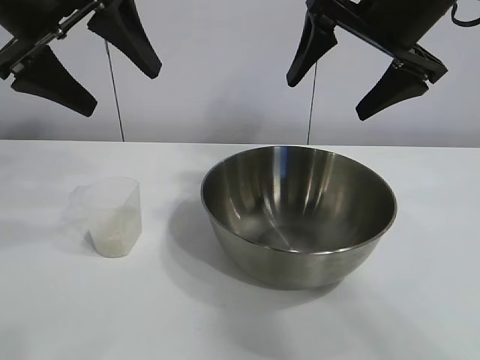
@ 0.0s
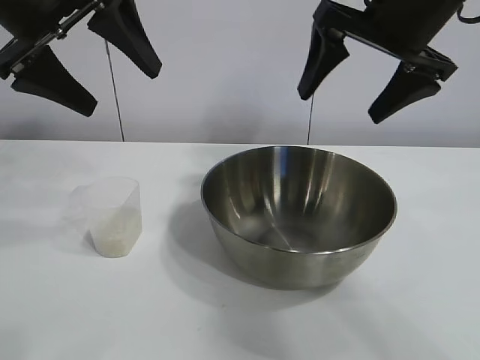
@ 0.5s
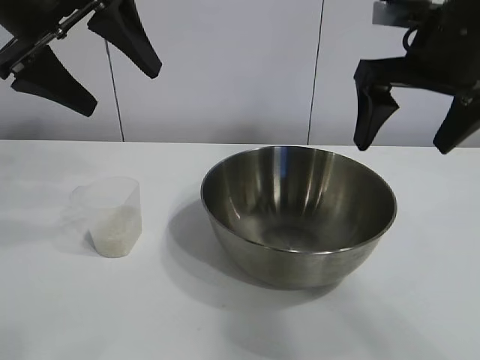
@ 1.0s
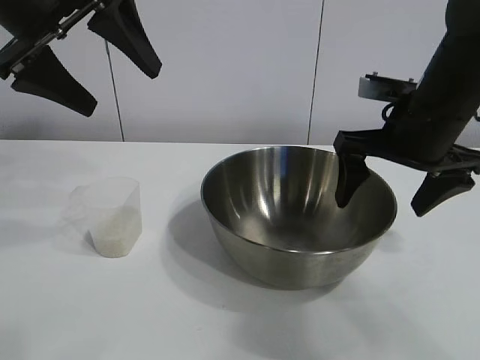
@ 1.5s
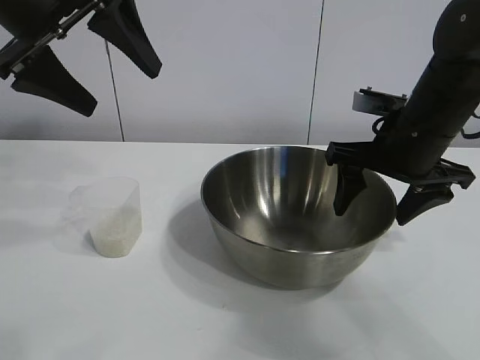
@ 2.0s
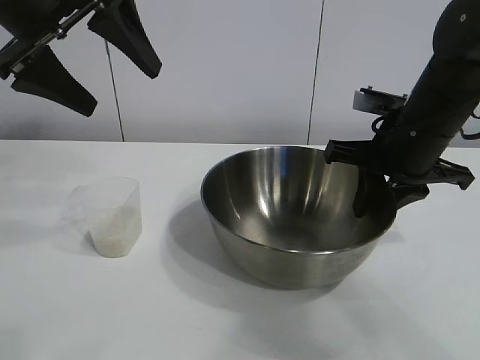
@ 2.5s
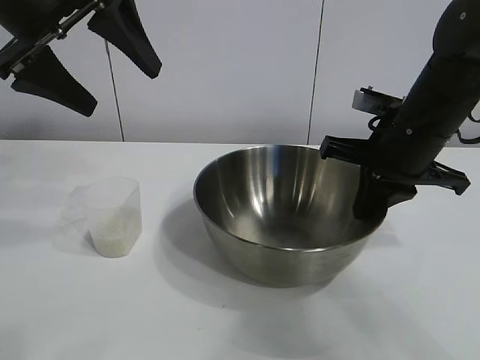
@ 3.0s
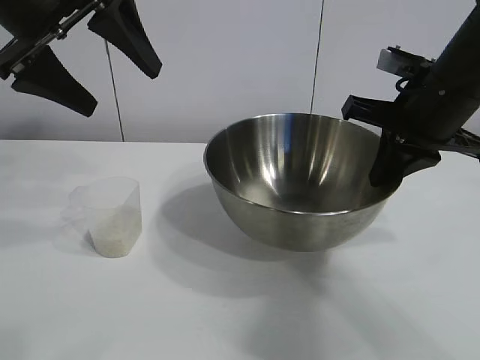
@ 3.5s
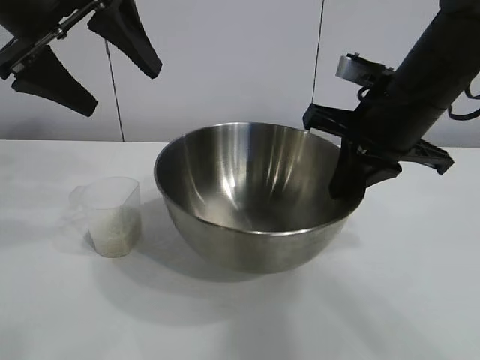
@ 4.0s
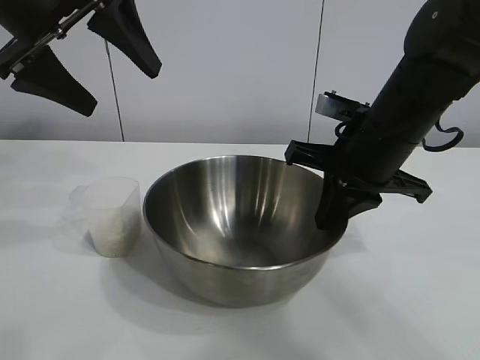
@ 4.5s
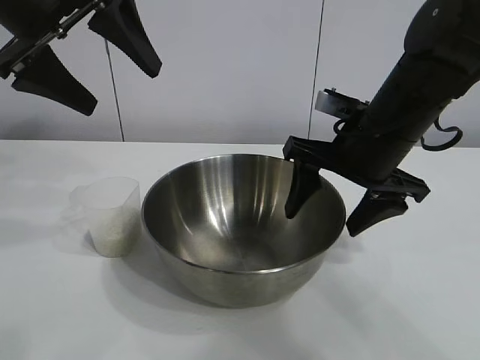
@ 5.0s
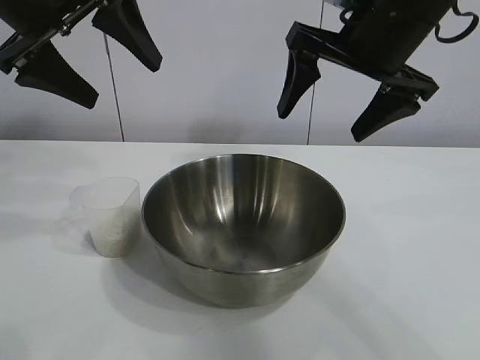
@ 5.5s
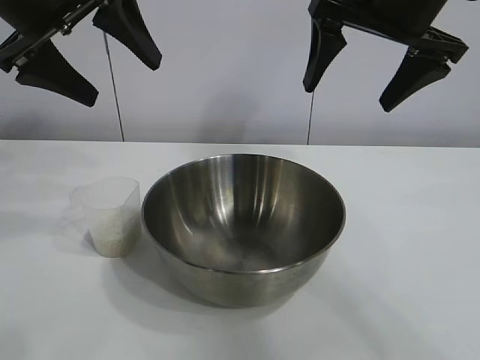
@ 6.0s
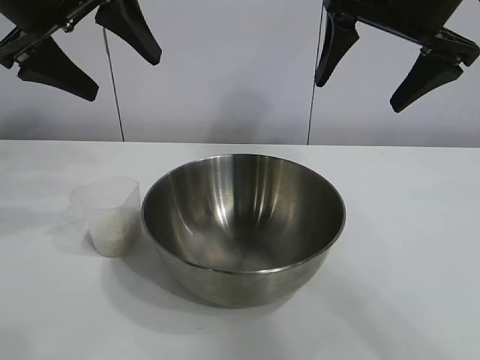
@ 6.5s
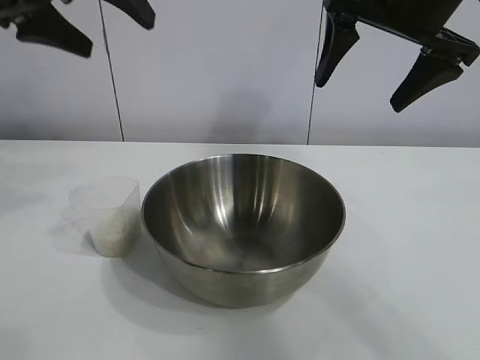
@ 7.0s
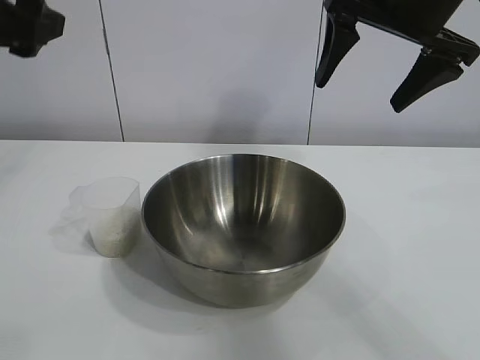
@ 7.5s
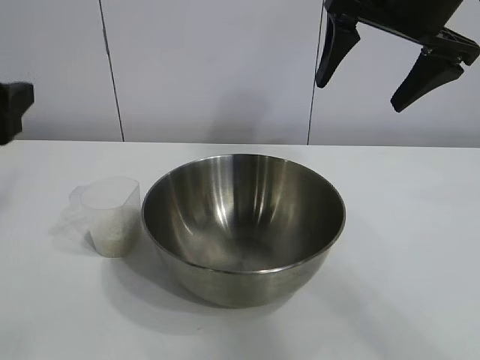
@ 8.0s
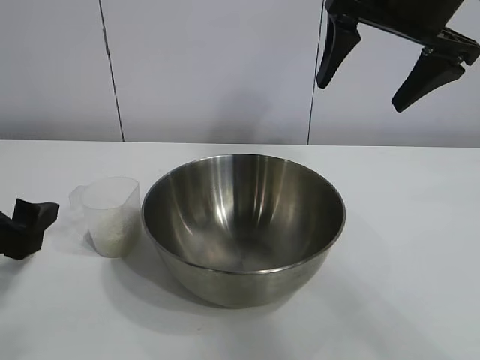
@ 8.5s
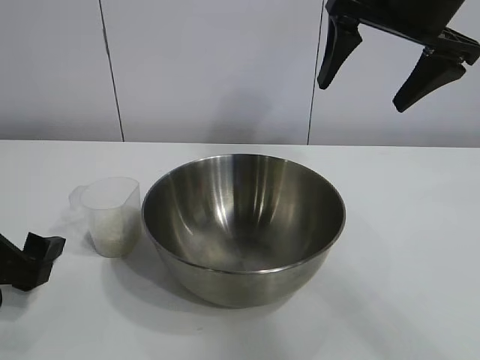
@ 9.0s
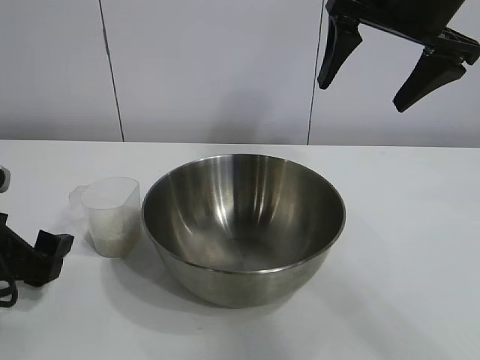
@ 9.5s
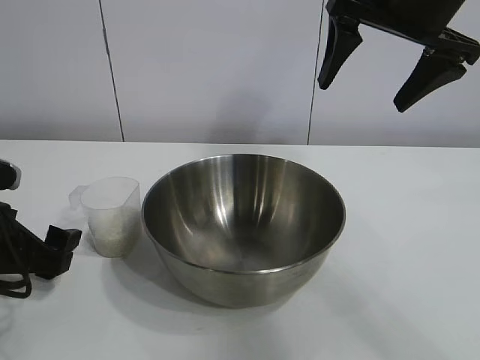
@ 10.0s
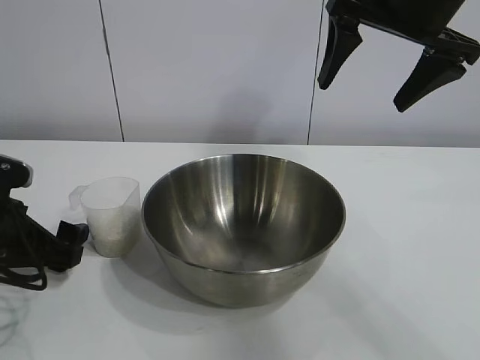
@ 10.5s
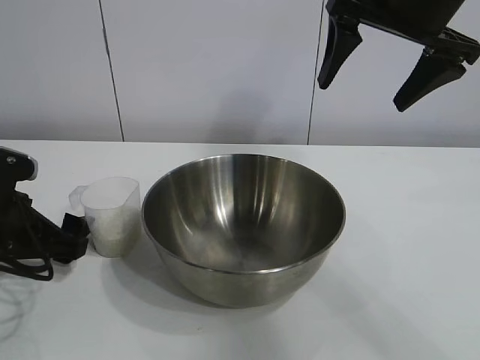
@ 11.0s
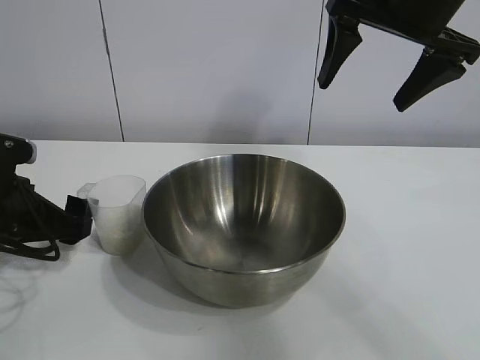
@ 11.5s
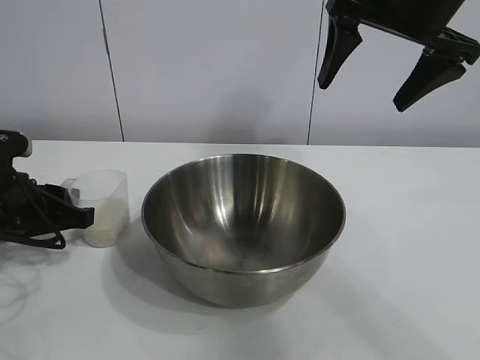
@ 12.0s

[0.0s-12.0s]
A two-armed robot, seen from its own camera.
Task of the whole recording: the right gripper grasp the rice container and place it in the center of the table, the left gripper grasp the rice scoop and pour the rice into the rice container.
Step, 0.0s to 5.0s: Move the bowl in the center of view with right gripper.

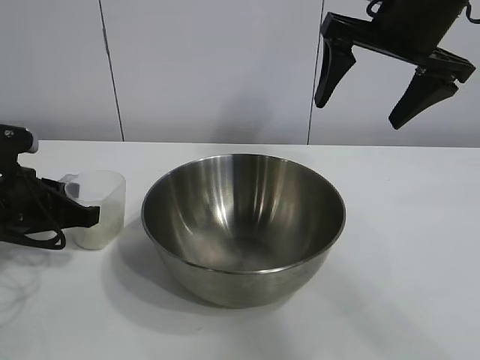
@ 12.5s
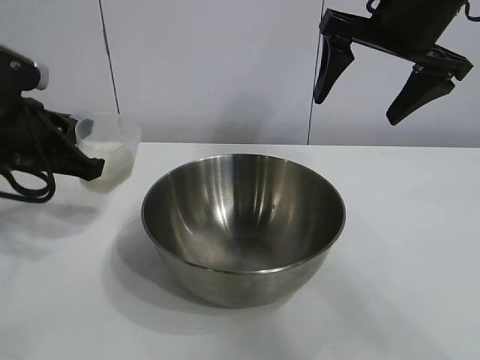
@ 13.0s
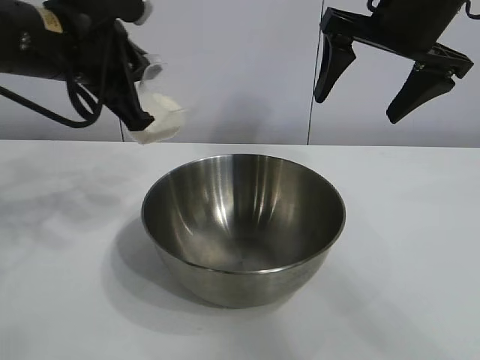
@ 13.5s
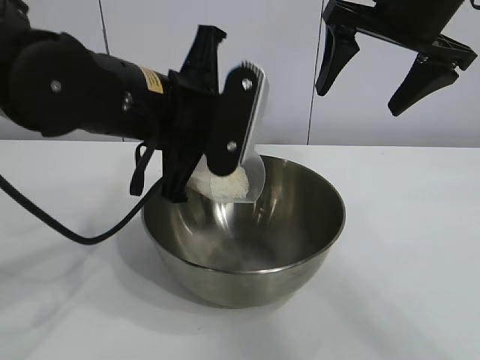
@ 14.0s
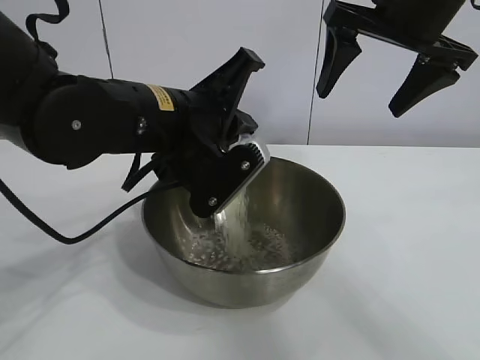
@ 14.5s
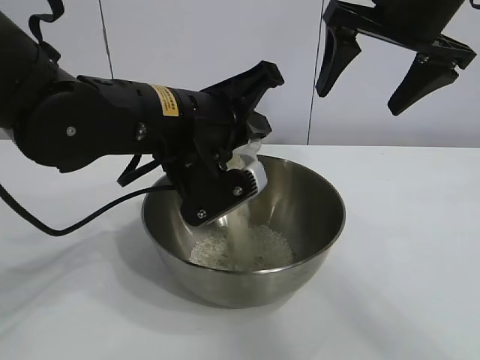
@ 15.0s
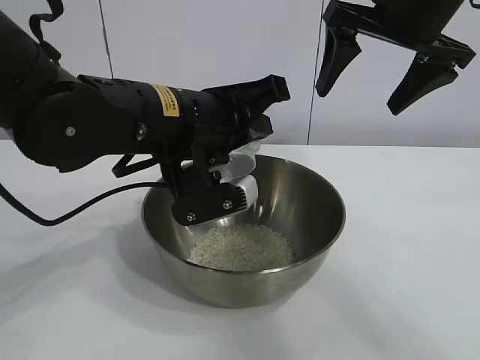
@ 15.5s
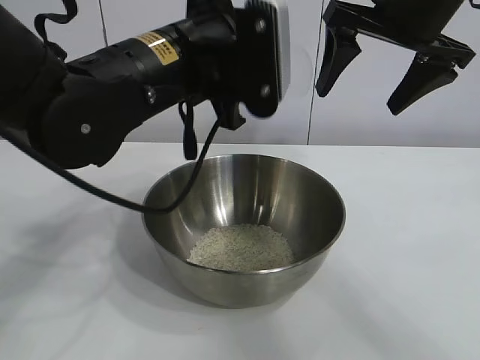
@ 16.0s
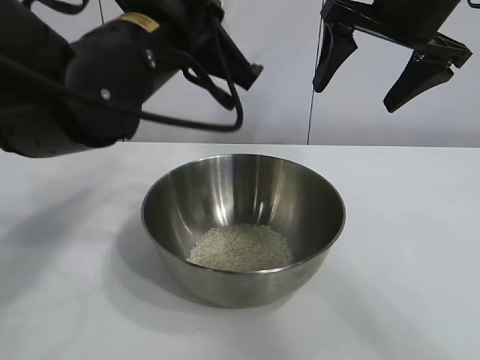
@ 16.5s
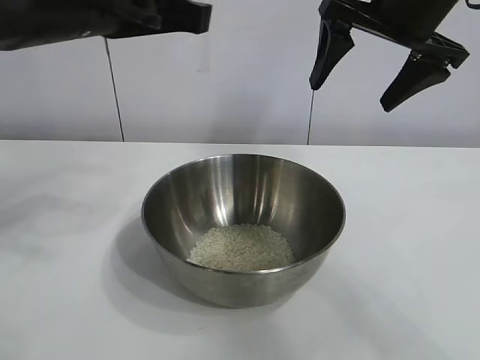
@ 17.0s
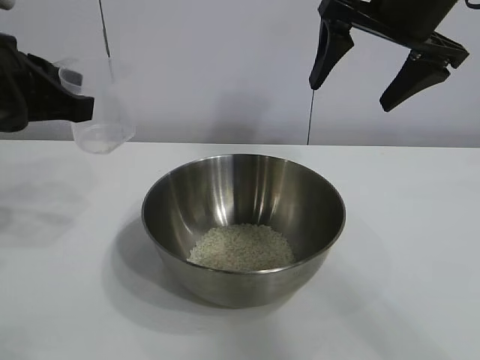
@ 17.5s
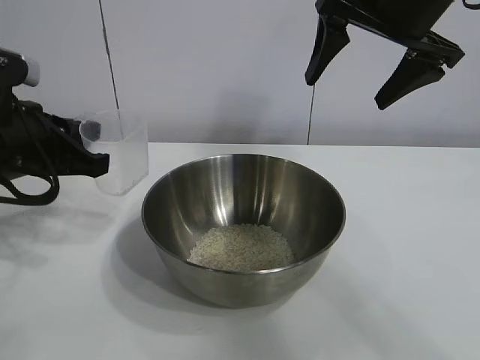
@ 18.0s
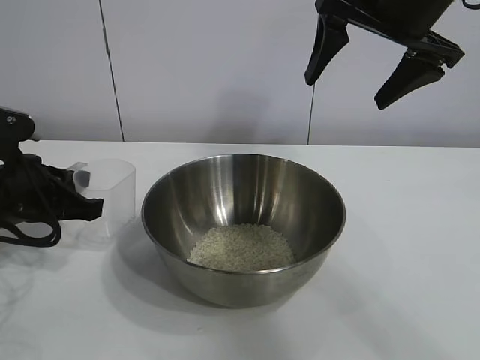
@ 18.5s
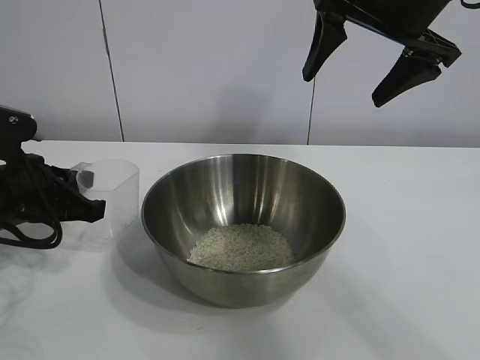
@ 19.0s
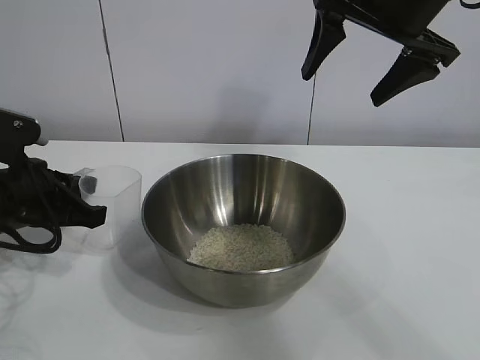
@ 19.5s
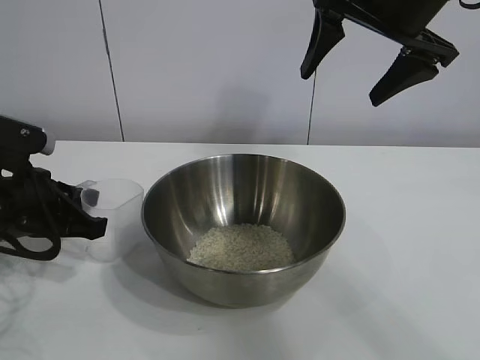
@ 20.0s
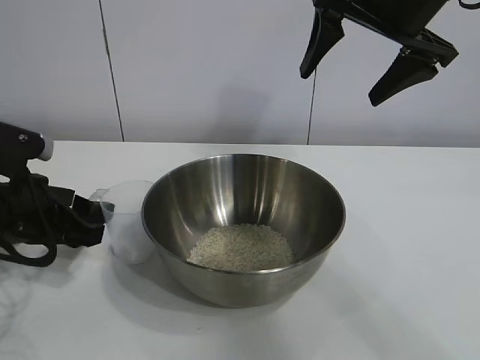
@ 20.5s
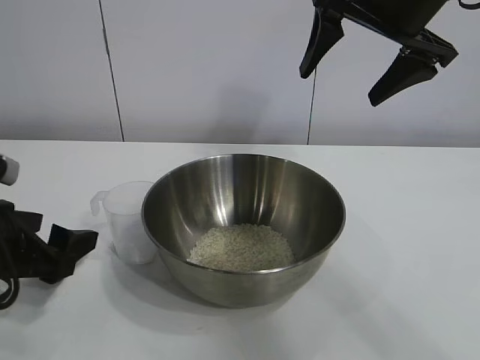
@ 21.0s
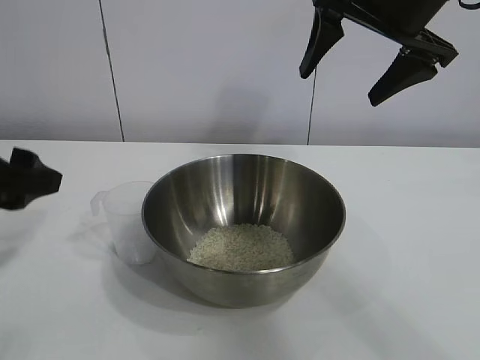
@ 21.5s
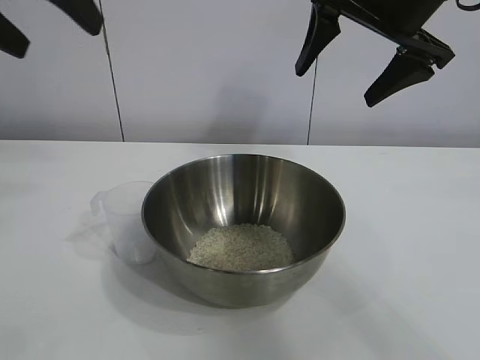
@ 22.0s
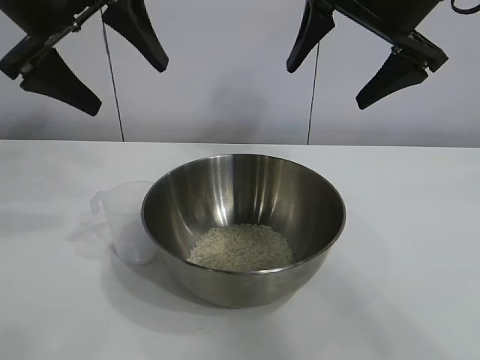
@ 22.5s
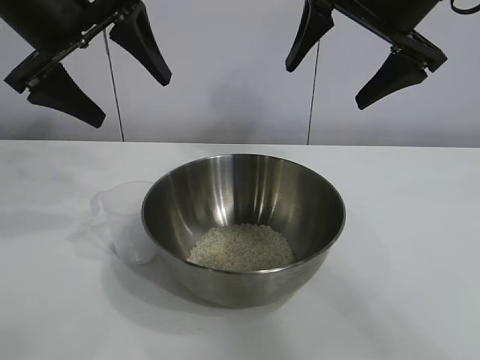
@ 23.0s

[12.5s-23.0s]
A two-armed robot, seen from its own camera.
Task of the whole recording: the right gripper grasp the rice container and place it in the center of the table, the left gripper grasp the rice scoop and pour the rice into the rice container.
Step, 13.0s to 15.0s: Pour the rice from the cup into the bowl with the left gripper.
Step, 15.5s to 20.5s: Place the cup on the table with the left gripper.
